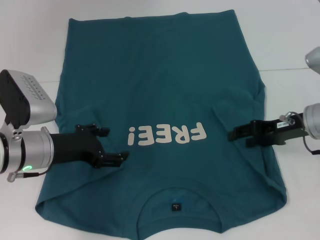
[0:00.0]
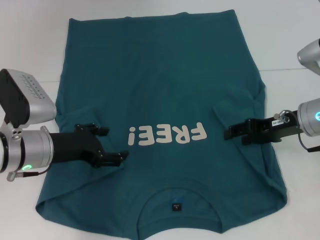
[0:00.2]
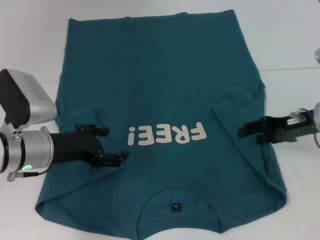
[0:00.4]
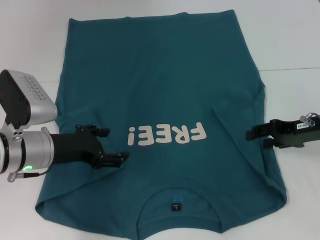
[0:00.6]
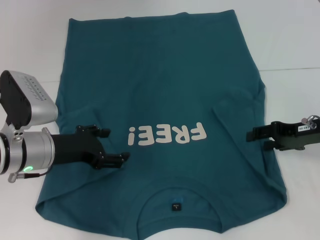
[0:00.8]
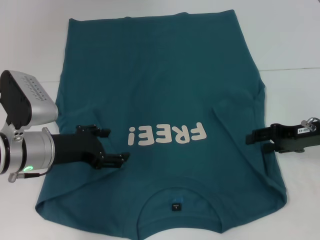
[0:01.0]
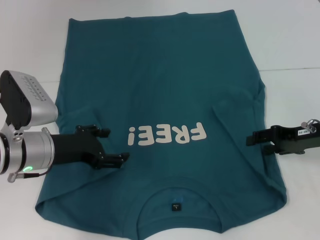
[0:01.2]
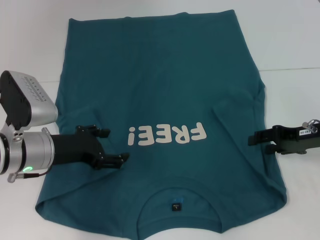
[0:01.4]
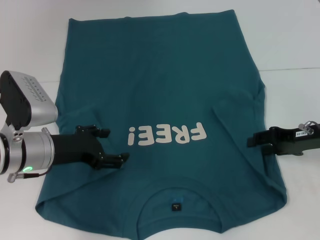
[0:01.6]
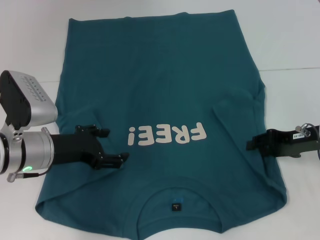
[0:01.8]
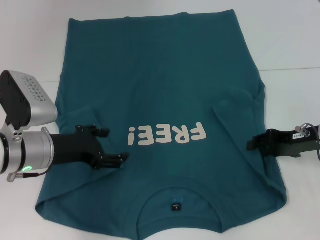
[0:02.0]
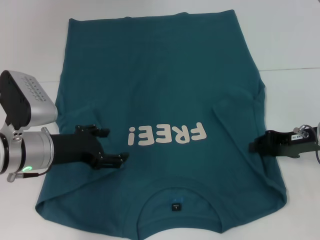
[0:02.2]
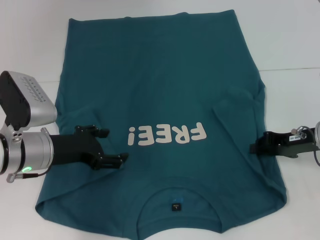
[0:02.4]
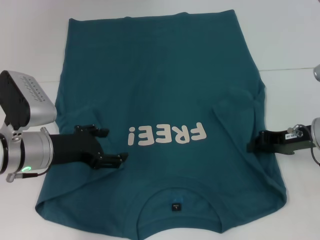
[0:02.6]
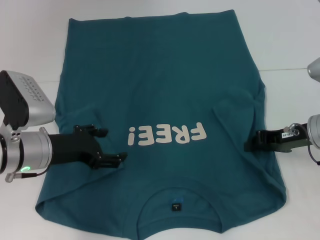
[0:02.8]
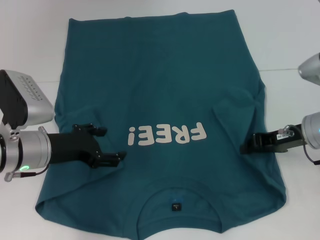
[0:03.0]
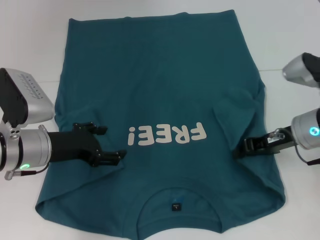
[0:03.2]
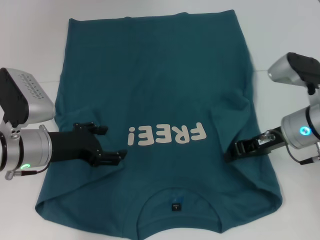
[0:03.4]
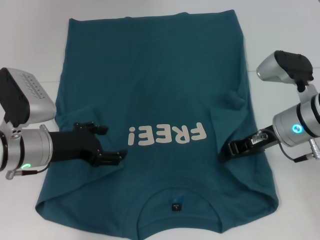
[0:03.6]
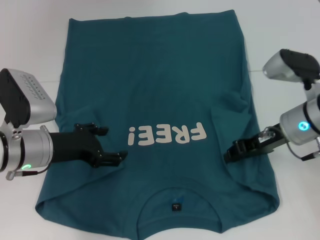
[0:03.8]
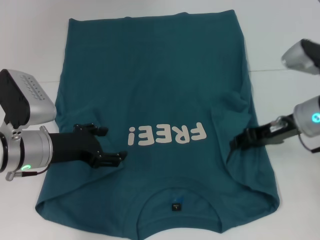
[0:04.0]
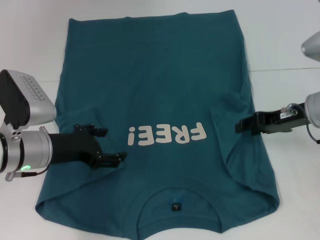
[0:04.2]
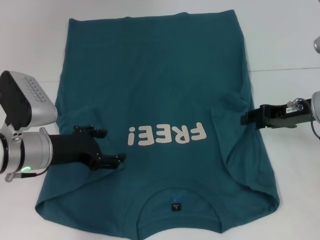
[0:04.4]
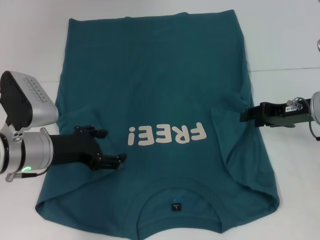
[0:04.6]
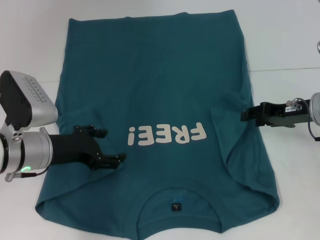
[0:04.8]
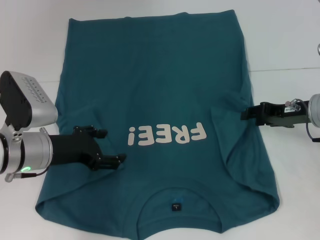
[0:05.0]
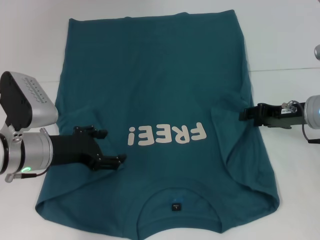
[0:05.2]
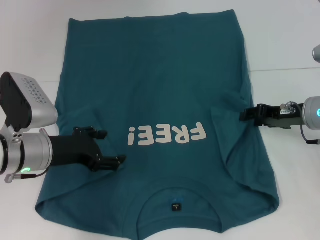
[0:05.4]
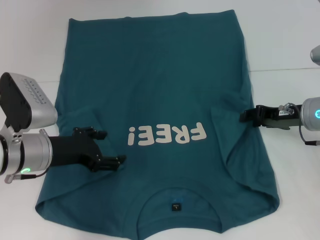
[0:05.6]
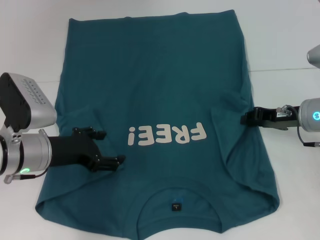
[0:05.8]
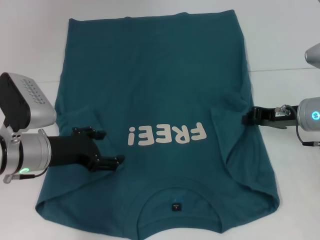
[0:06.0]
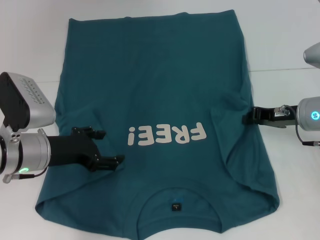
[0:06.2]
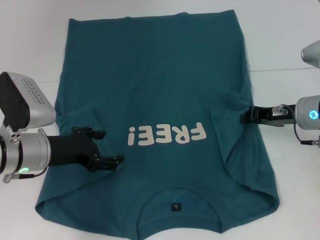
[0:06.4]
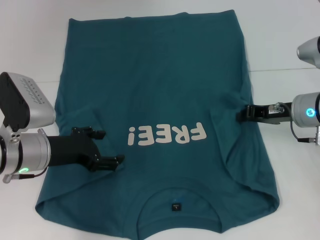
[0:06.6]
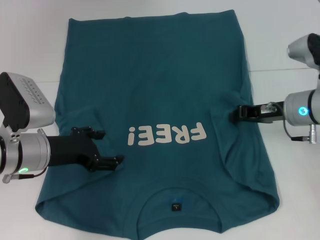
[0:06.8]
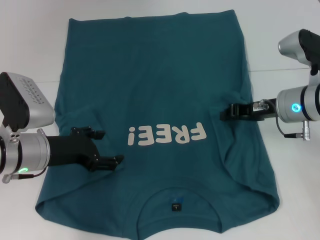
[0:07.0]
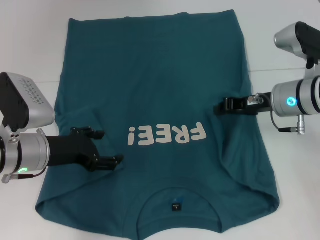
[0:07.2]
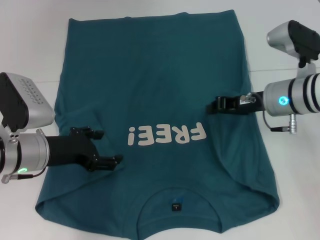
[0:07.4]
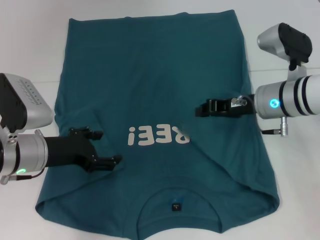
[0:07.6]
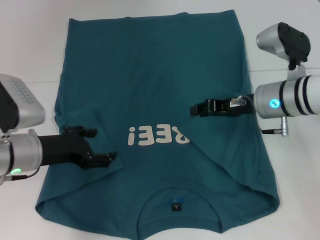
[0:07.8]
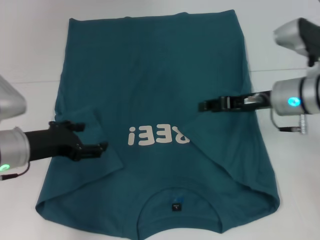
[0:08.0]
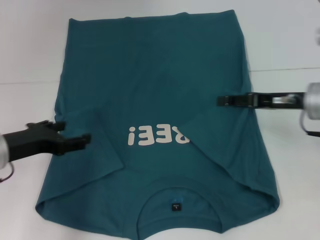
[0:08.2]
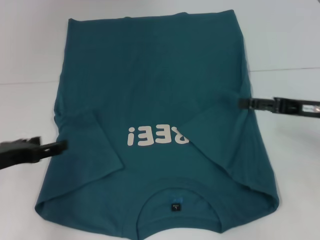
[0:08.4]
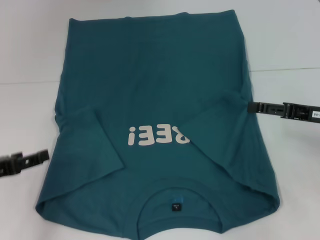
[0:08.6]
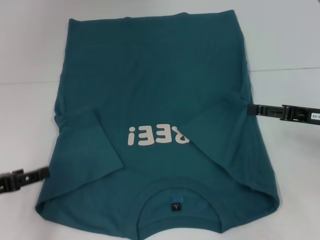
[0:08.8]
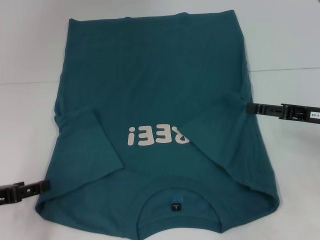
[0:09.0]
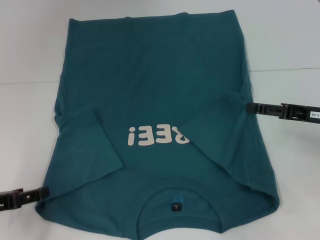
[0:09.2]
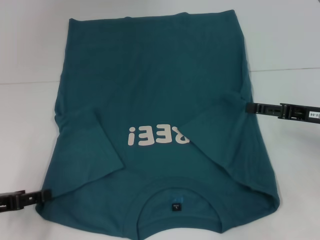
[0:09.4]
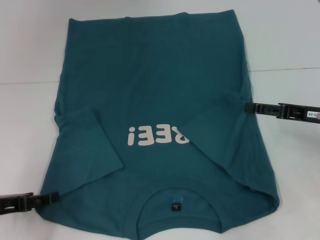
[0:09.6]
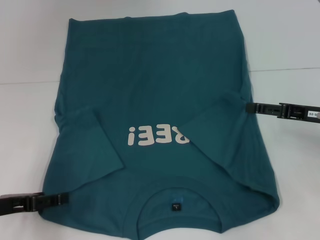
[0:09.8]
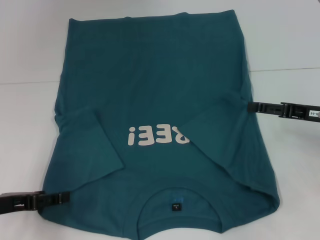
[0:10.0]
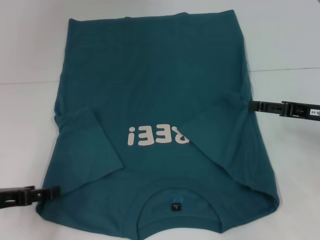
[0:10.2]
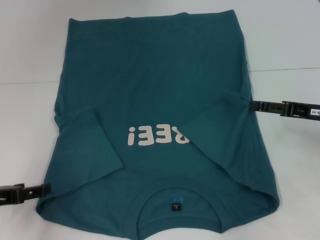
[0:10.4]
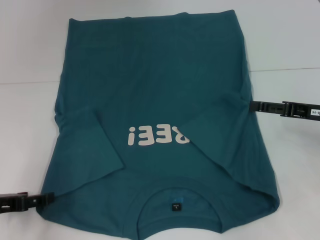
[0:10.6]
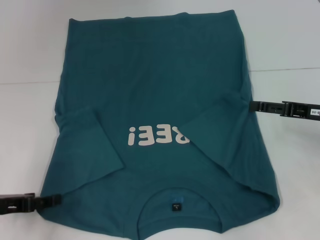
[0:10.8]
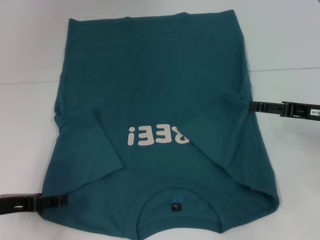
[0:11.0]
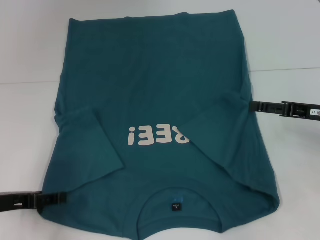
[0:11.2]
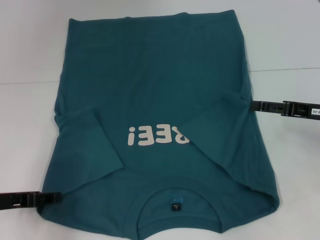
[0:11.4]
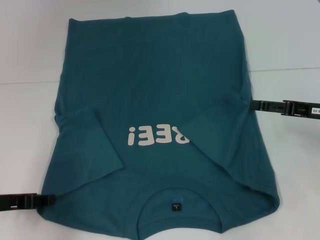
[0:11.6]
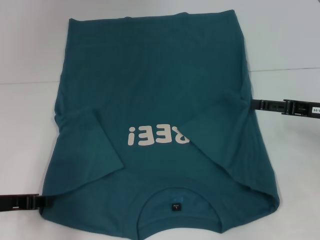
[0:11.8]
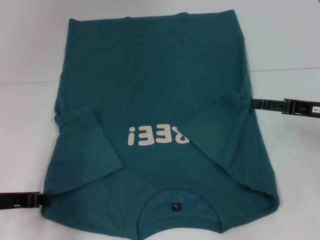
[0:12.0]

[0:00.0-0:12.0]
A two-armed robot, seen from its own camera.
Step, 0:00.0 to 0:08.0: Fold the bottom right sleeve to the right.
0:00.0 to 0:01.6: The grippers move only a little.
0:01.6 to 0:03.0: The right gripper closes.
0:03.0 to 0:04.4: The right gripper opens up.
0:04.4 to 0:06.0: The grippers move only a little.
0:06.0 to 0:07.6: The right gripper travels to the left by about 5 cm.
0:07.6 to 0:09.0: The right gripper is displaced to the right and backward by roughly 15 cm, and opens its fingers. The left gripper travels to the left and backward by about 15 cm.
0:09.0 to 0:10.4: There are only small adjustments of the grippers.
0:10.4 to 0:12.0: The left gripper closes its fingers.

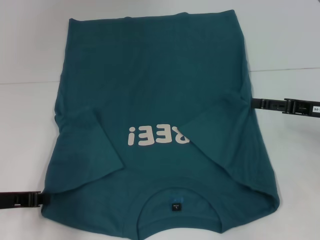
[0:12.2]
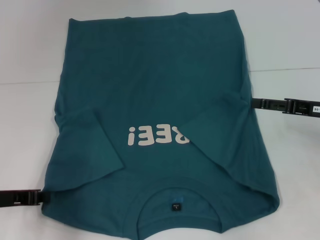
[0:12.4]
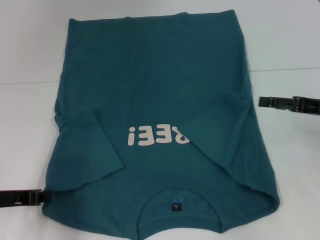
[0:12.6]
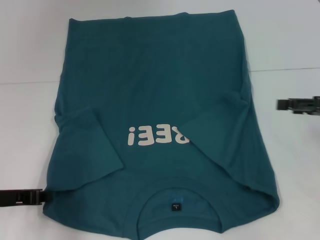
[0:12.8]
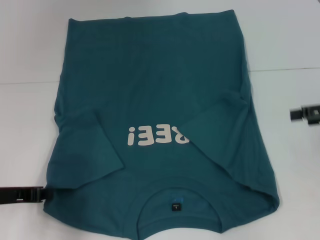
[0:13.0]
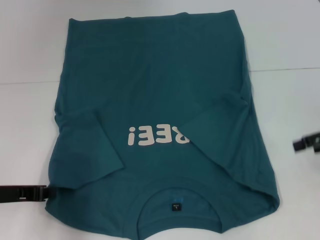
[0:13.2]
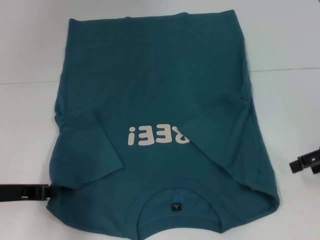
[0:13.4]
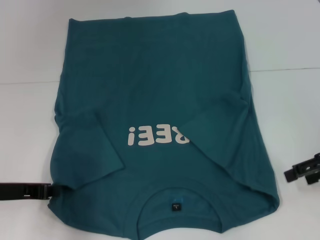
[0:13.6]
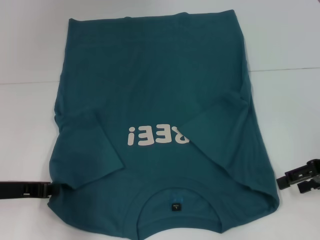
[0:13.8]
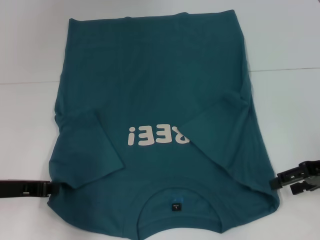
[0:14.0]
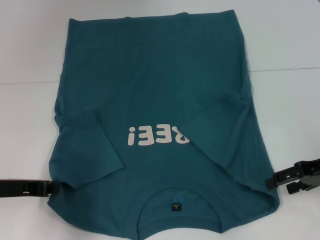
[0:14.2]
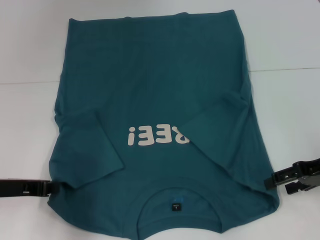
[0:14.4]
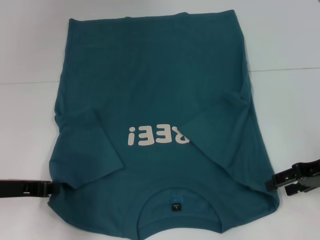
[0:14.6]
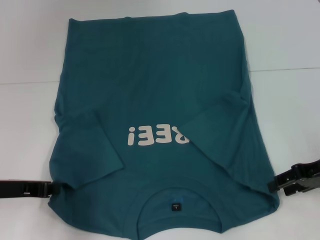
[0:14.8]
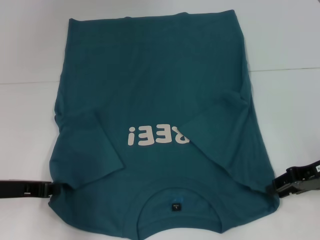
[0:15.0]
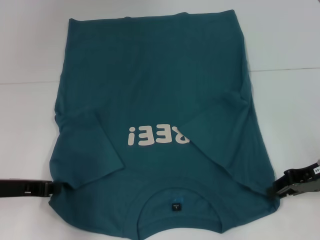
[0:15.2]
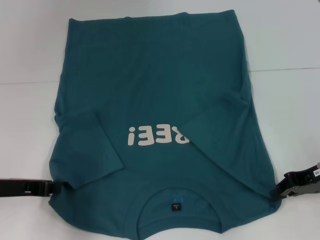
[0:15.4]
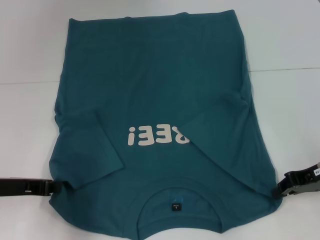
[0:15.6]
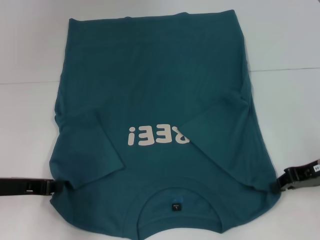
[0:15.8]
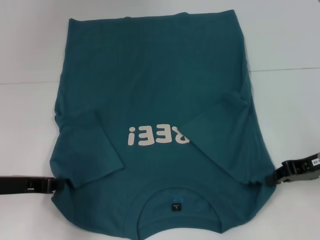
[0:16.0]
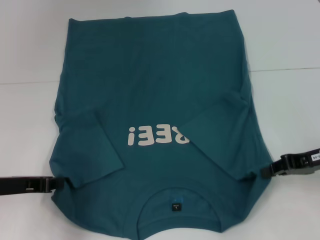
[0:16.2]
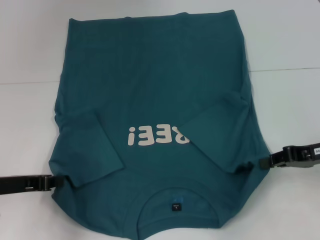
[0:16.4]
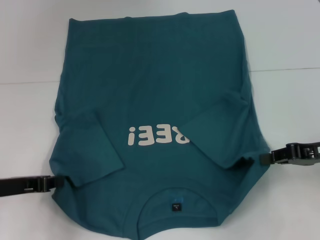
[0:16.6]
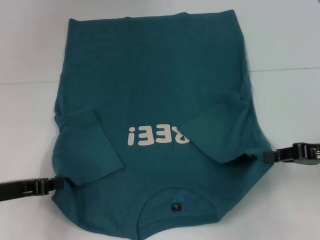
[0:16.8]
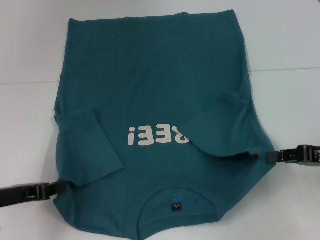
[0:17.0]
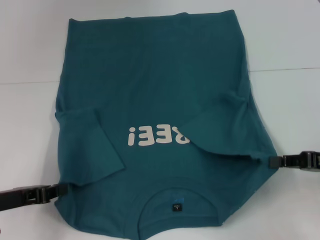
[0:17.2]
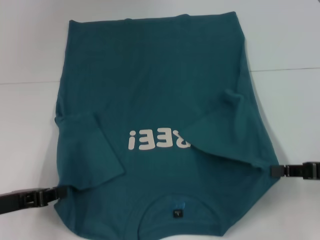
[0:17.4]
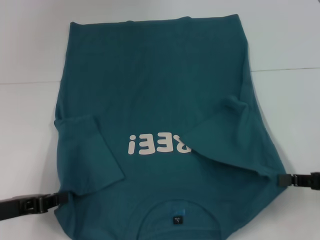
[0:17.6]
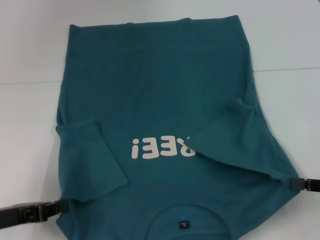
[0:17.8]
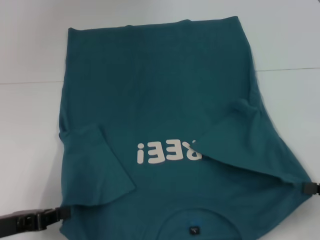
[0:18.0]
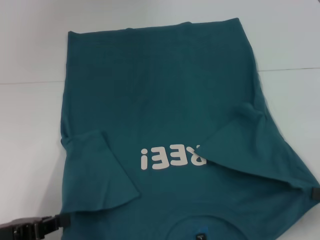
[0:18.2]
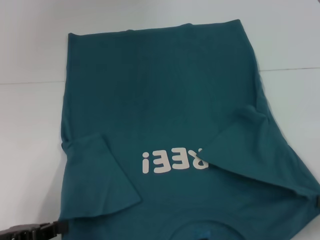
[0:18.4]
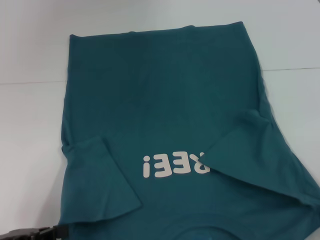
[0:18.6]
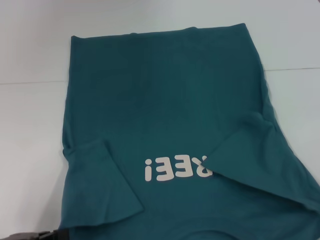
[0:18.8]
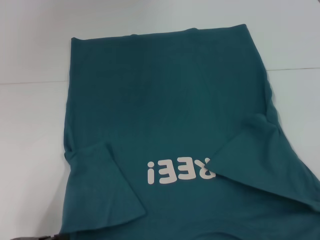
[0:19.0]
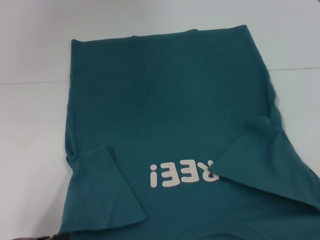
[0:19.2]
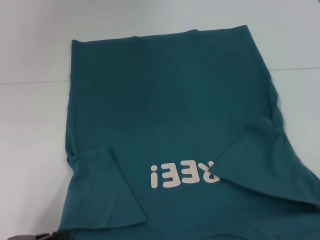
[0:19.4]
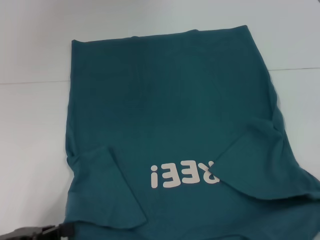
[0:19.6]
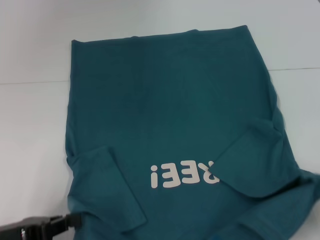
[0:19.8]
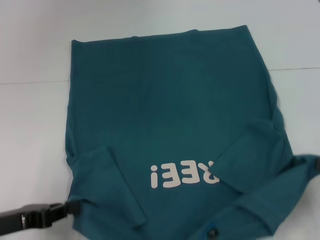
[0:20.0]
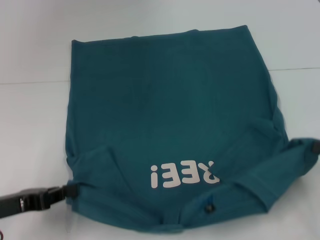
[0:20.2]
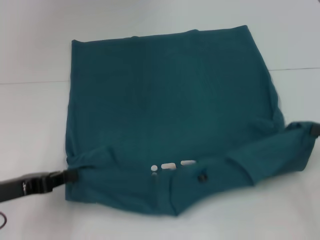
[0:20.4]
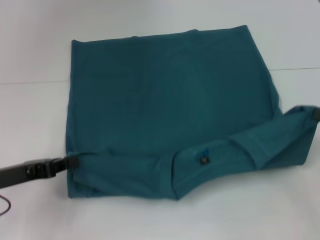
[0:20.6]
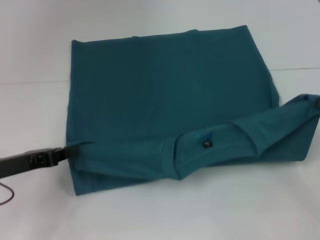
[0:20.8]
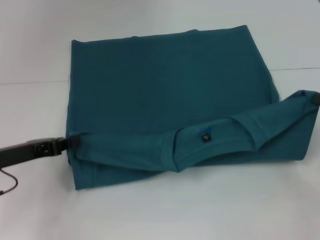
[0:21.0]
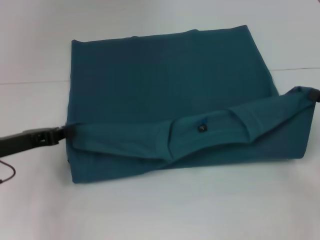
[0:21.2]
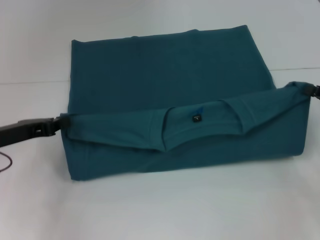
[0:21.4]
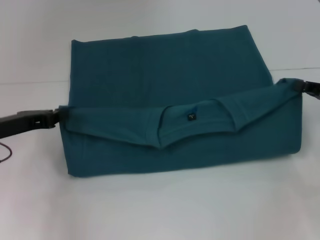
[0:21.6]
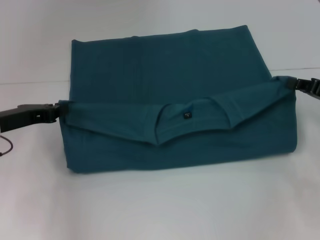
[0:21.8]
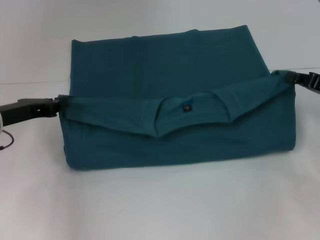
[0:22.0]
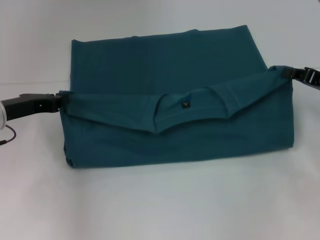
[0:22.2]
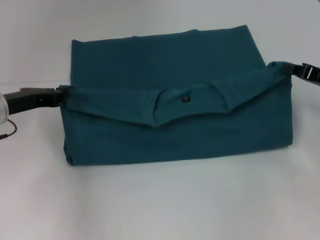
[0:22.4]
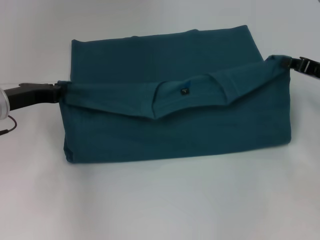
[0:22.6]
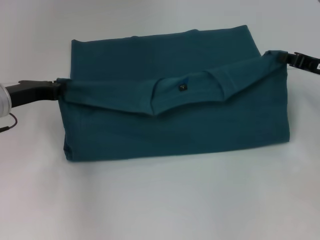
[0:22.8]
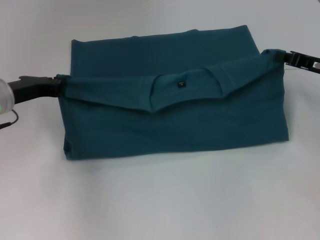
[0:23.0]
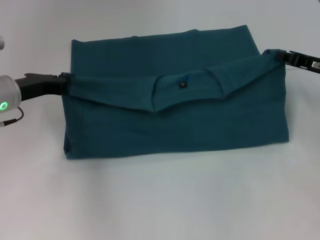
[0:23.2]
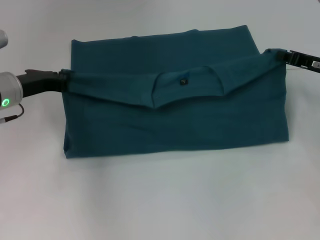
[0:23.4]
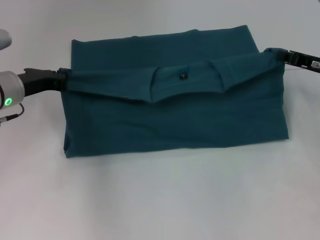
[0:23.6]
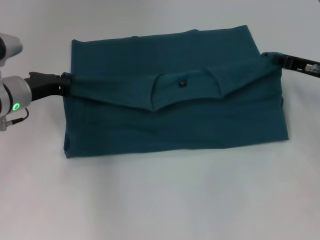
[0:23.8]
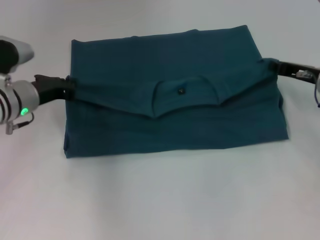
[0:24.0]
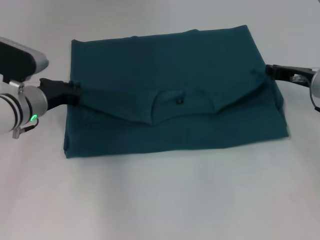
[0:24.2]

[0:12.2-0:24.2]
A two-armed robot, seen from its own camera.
Step, 0:12.8 to 0:15.8: Grab the bottom right corner with your right hand.
0:13.8 to 0:15.2: The right gripper closes up.
0:15.2 to 0:16.6: The right gripper closes.
0:16.6 to 0:18.2: The left gripper travels backward by approximately 5 cm, while the right gripper moves backward and to the right, roughly 15 cm.
0:19.8 to 0:21.2: The two grippers go about 10 cm forward.
0:21.2 to 0:22.6: Both grippers move forward, approximately 5 cm.
0:22.6 to 0:24.2: The left gripper is displaced to the right by some 5 cm; the right gripper changes place by roughly 5 cm.
